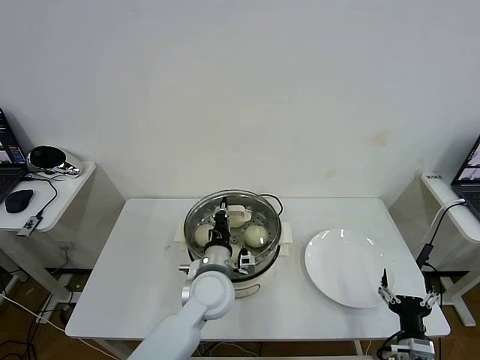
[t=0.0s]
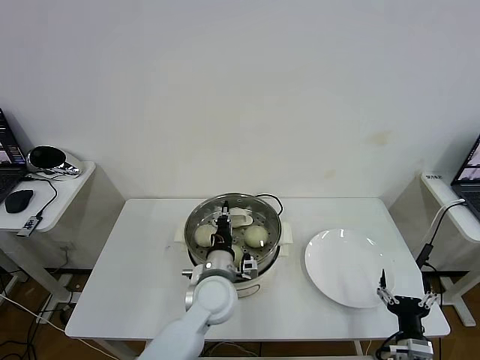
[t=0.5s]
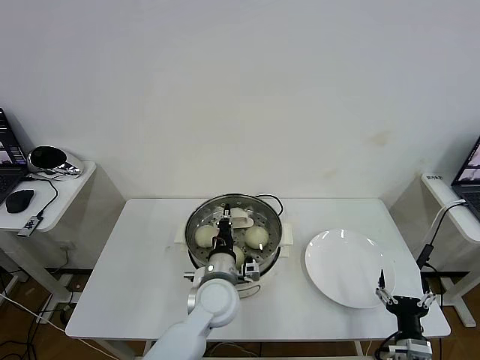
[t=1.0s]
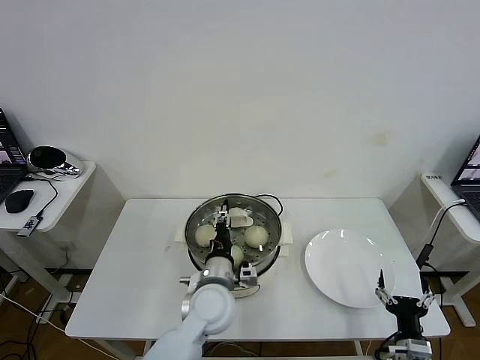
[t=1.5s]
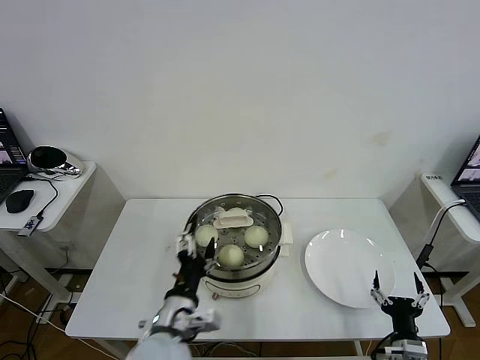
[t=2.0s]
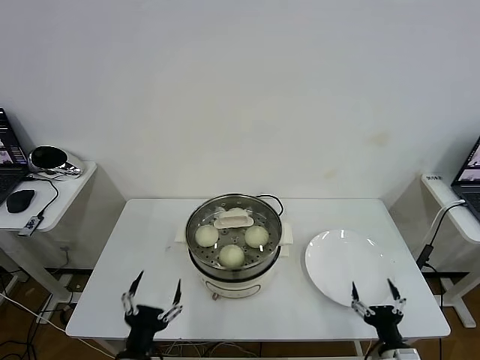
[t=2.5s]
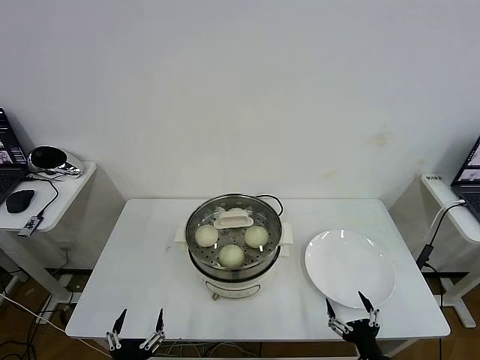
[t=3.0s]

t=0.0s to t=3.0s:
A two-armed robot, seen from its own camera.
Task of the whole recording: take steamed baozi put them in steamer then cover it.
t=0.0s to t=1.5s: The left gripper opens up.
t=1.5s to t=3.0s: The right gripper ends up about 5 cm from where it was. The left gripper goes roughly 30 cm backward and to the left, and opens.

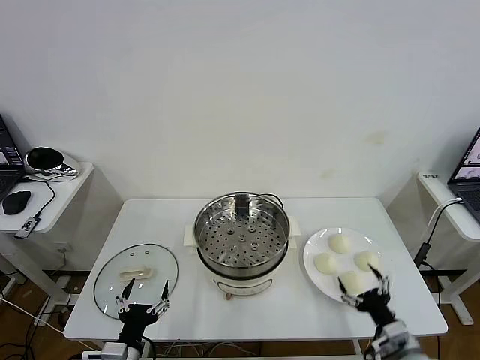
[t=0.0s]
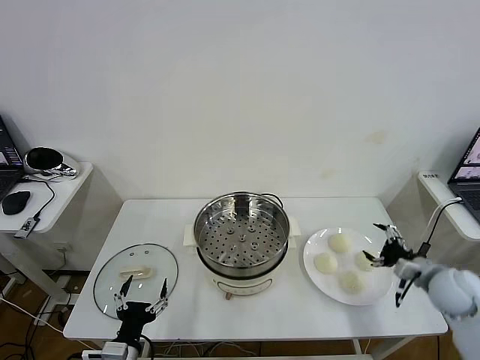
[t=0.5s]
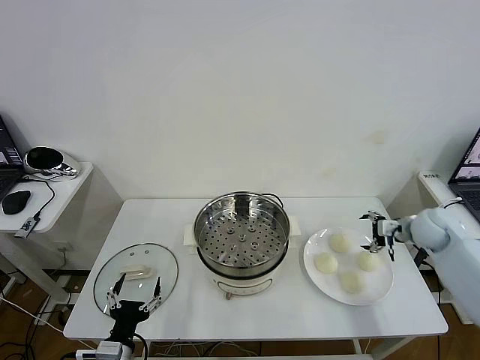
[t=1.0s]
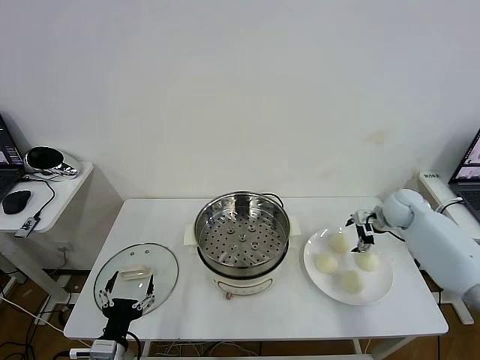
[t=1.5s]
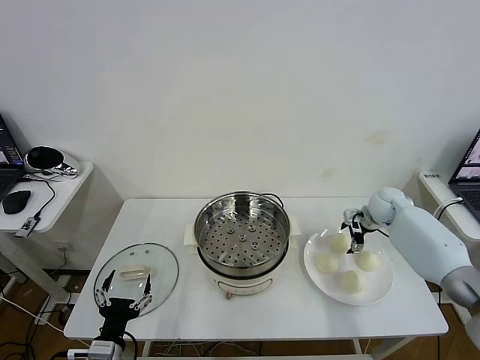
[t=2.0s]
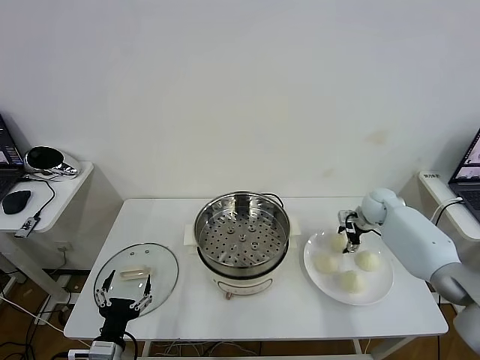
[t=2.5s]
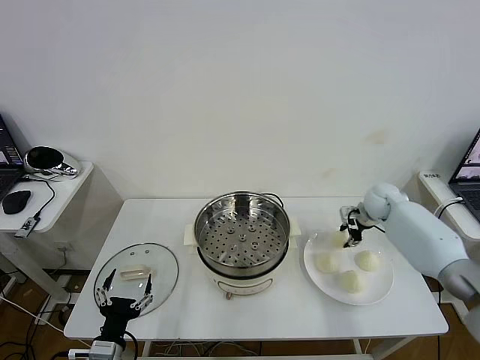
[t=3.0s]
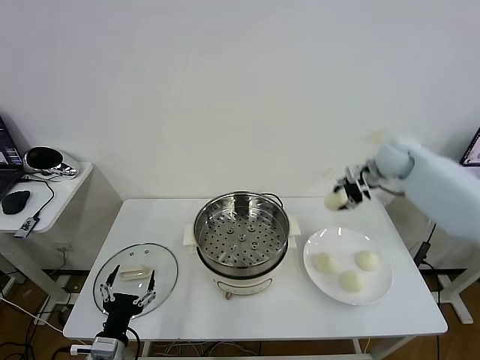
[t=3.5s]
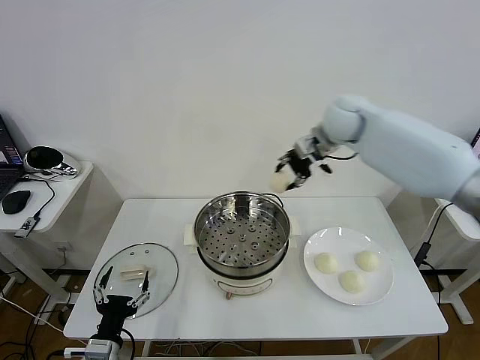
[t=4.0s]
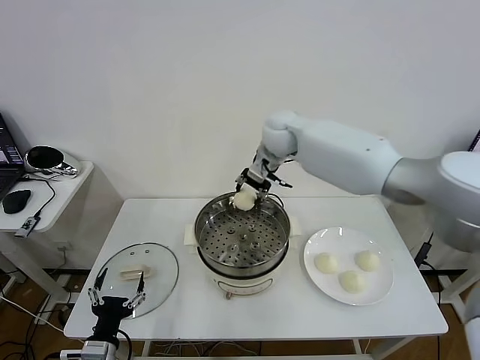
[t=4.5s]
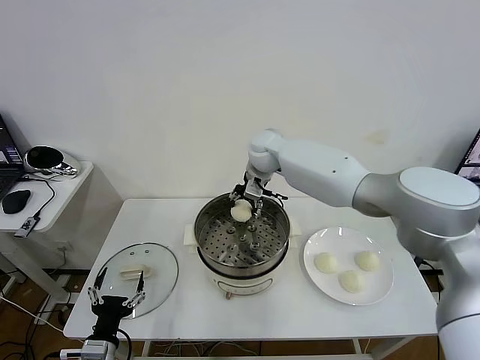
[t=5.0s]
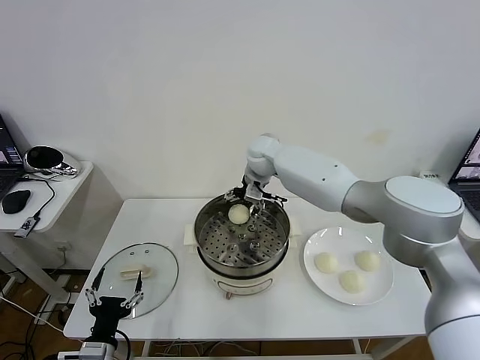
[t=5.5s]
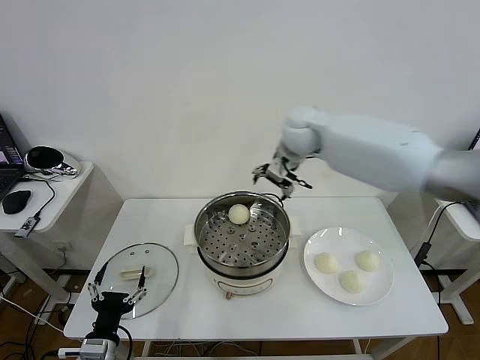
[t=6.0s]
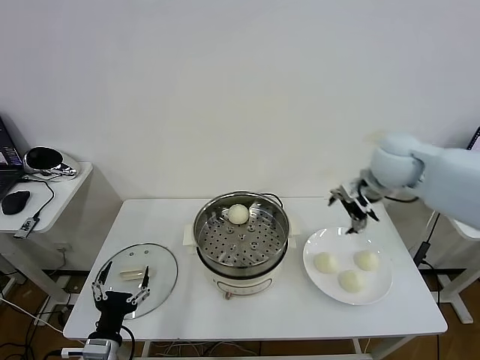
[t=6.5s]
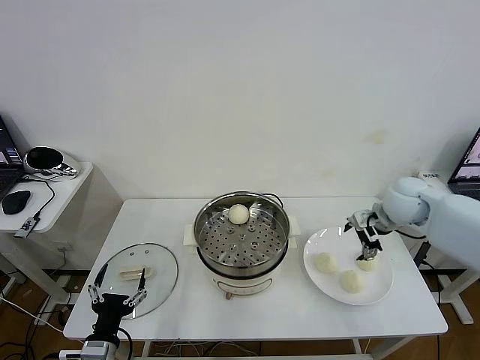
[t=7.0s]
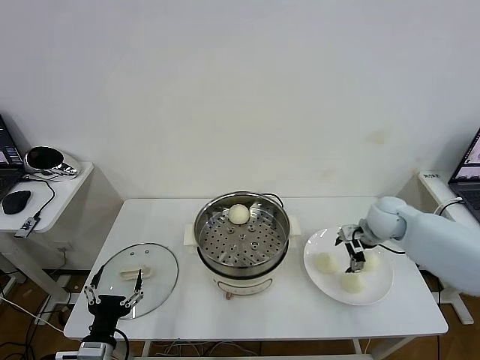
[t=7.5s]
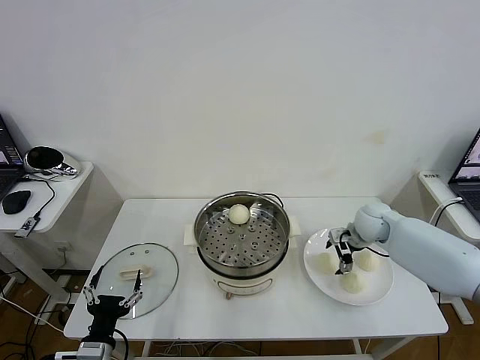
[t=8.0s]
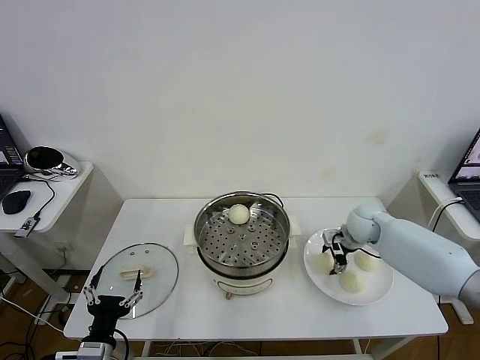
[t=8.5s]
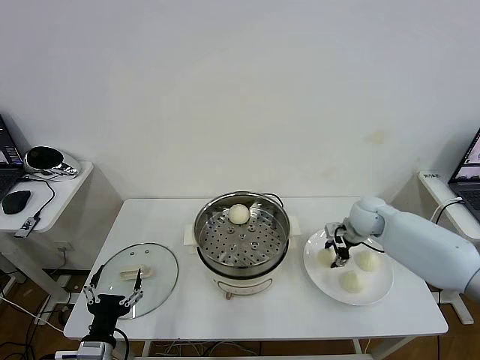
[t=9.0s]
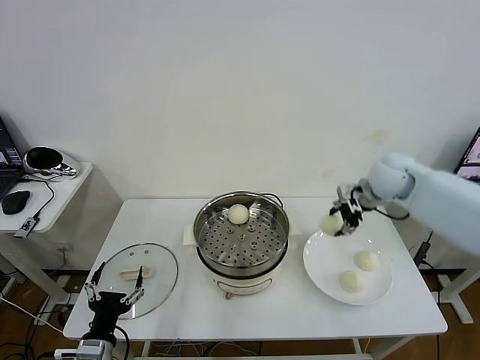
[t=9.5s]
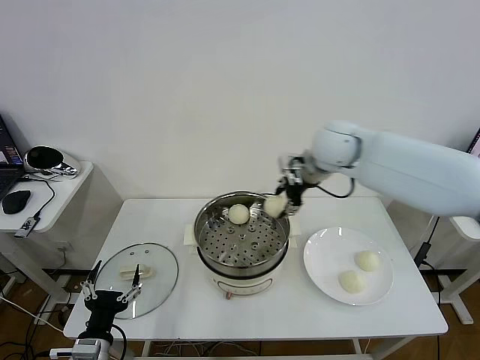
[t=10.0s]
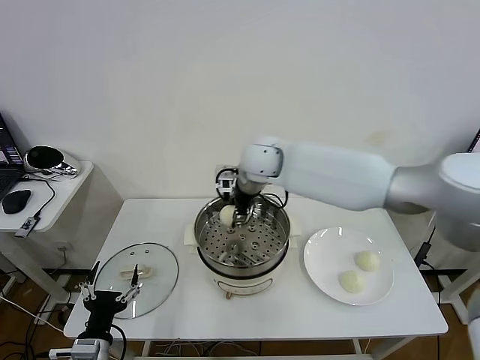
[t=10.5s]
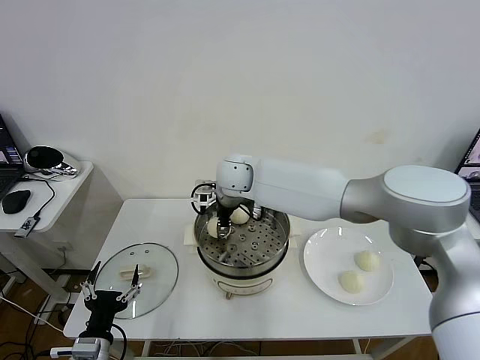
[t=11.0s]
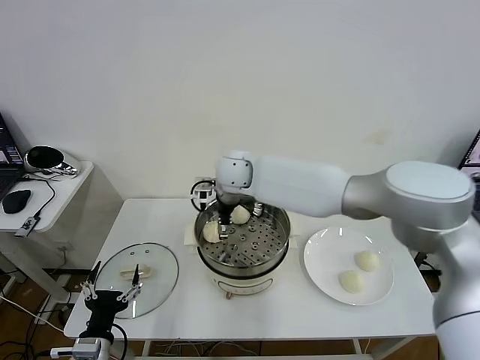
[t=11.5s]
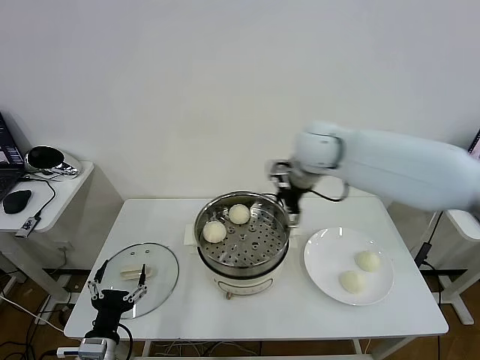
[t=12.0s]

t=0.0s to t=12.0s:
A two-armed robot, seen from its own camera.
Task of the whole recording: take steamed baozi put them in steamer then cover it.
Step, t=0.0s to t=2.5s: Grasp the baozi in the plate with right gripper.
Step, t=3.0s to t=5.5s: Place the baozi on the steamer with right gripper.
Step, t=6.0s to t=8.5s: Grasp the baozi in the plate with right gripper.
Step, t=9.0s to t=11.0s: Place the baozi on the steamer with right gripper.
t=2.0s to t=4.0s: The right gripper travels upward and to the left by about 30 cm, and closes.
t=4.0s to t=6.0s: The right gripper travels to the left by approximately 5 cm, and opens.
t=6.0s to t=8.0s: The right gripper travels downward and to the right by roughly 30 cm.
t=8.0s to t=10.0s: The right gripper moves upward and to the left, roughly 25 cm, and closes its fingers.
t=10.0s to t=12.0s: The right gripper moves roughly 20 cm to the left and comes back, and opens its fingers.

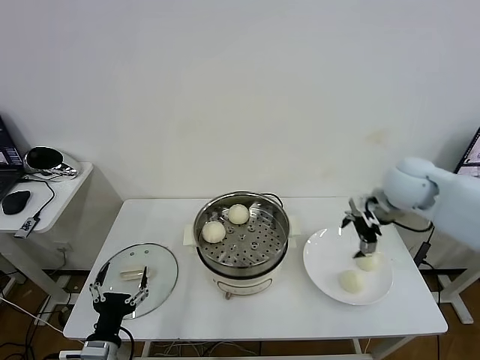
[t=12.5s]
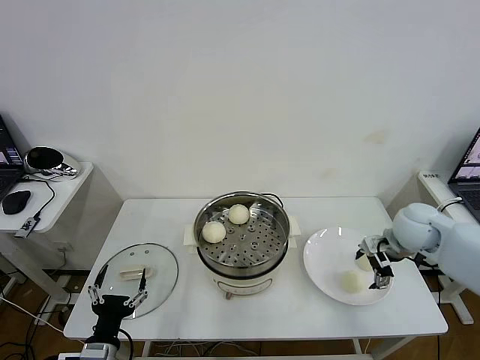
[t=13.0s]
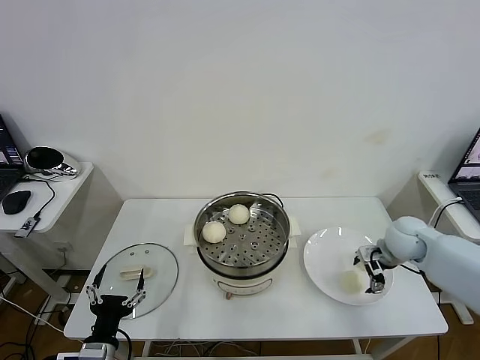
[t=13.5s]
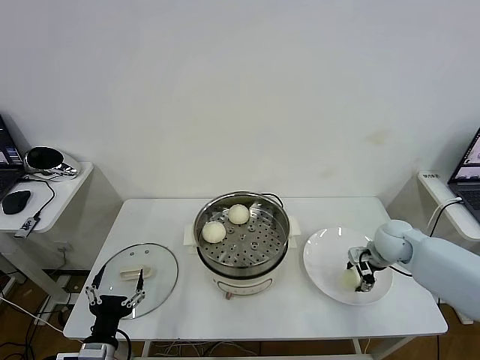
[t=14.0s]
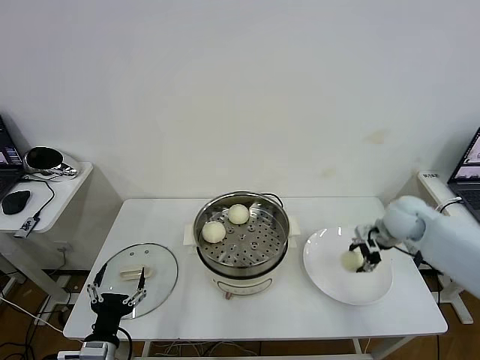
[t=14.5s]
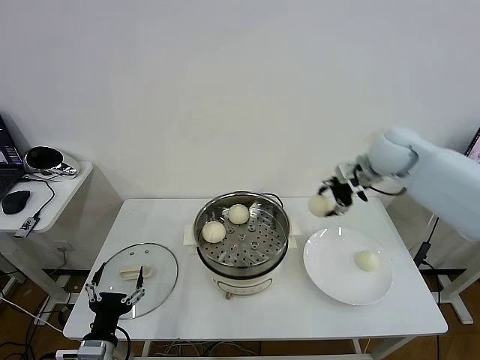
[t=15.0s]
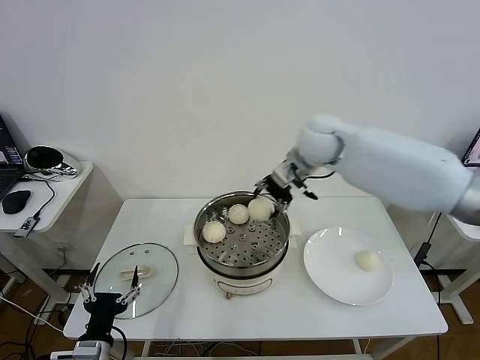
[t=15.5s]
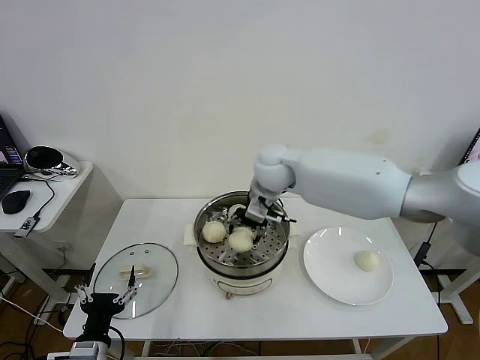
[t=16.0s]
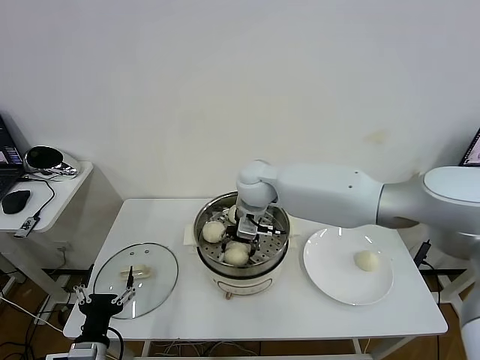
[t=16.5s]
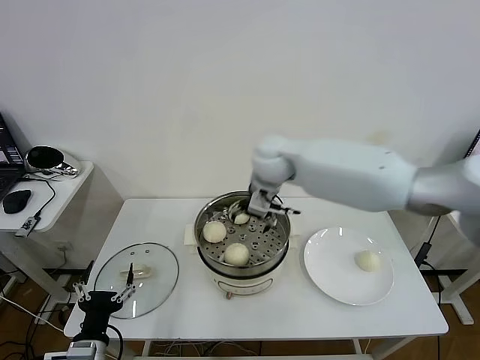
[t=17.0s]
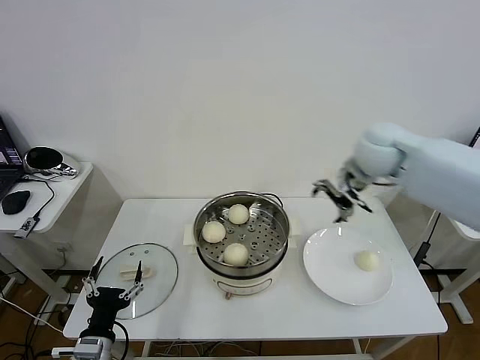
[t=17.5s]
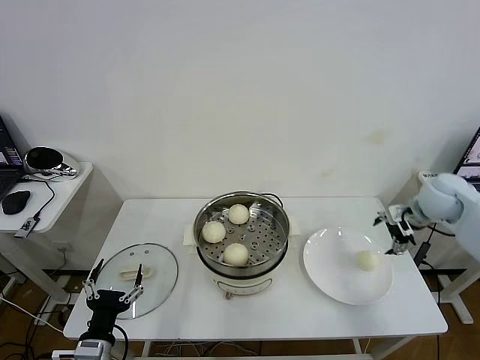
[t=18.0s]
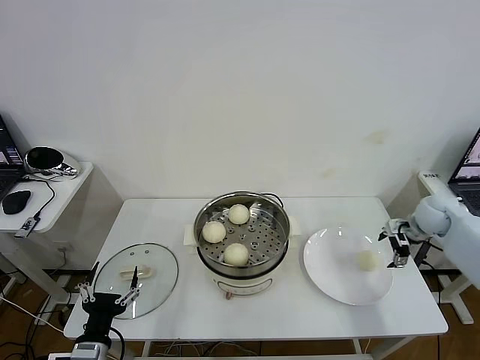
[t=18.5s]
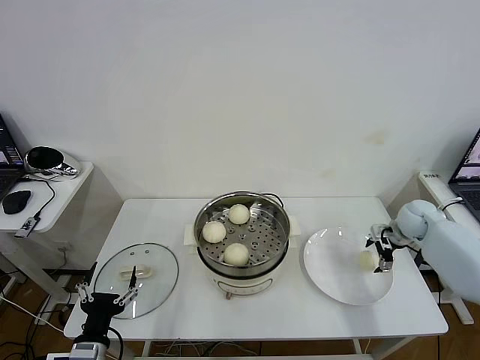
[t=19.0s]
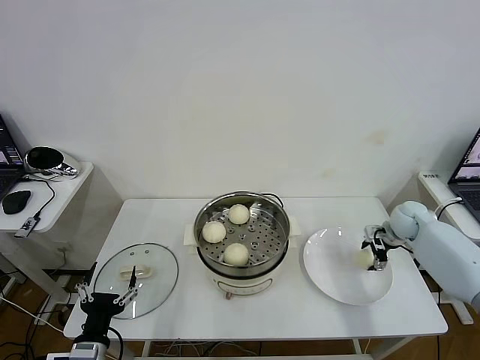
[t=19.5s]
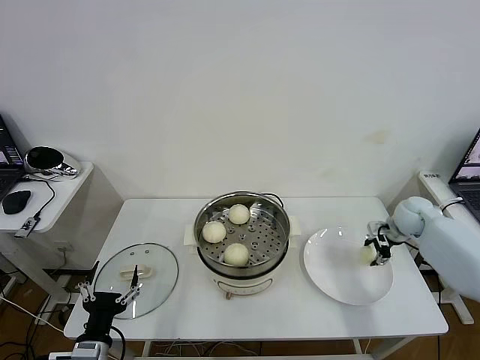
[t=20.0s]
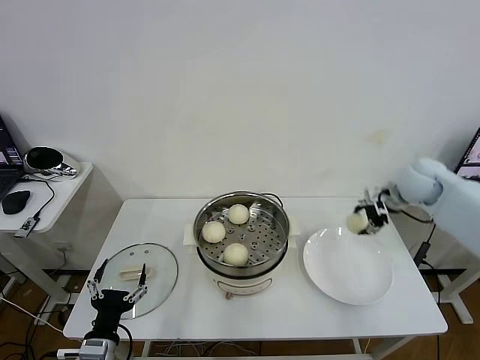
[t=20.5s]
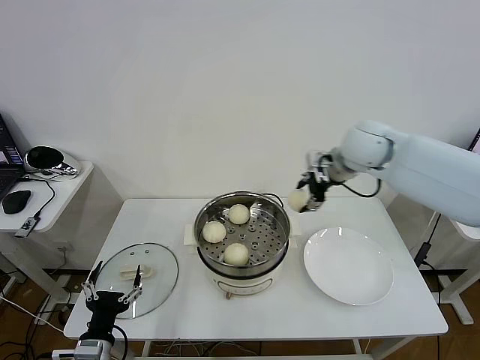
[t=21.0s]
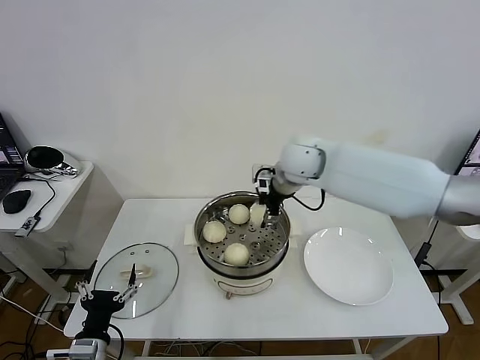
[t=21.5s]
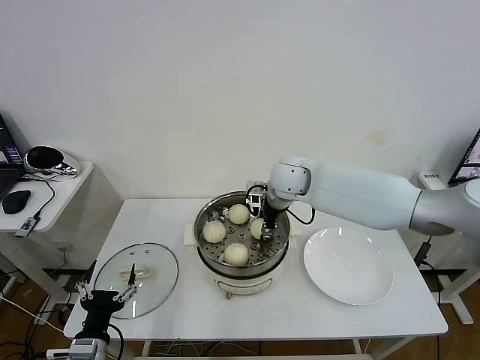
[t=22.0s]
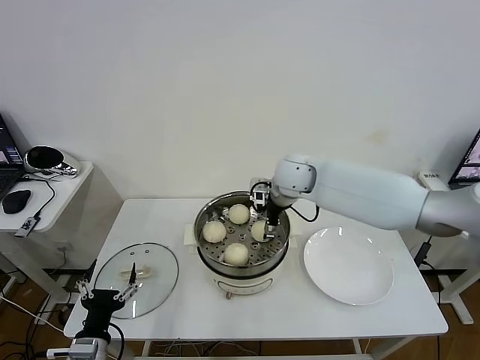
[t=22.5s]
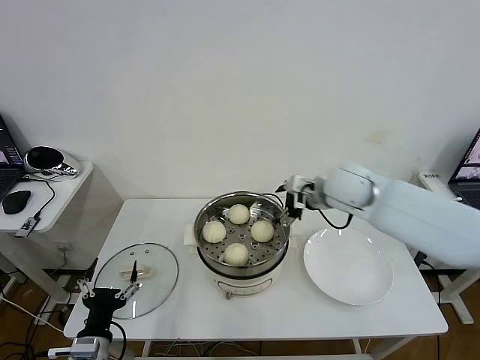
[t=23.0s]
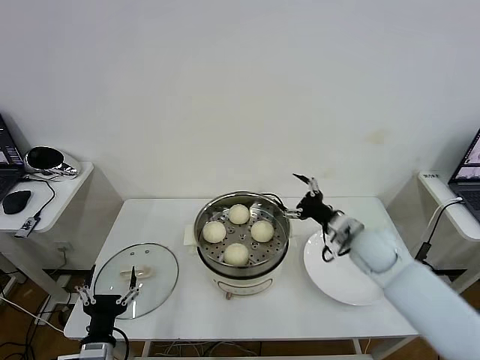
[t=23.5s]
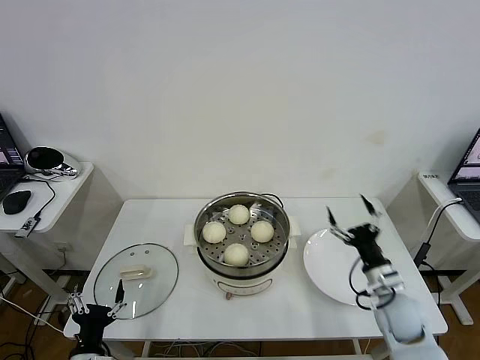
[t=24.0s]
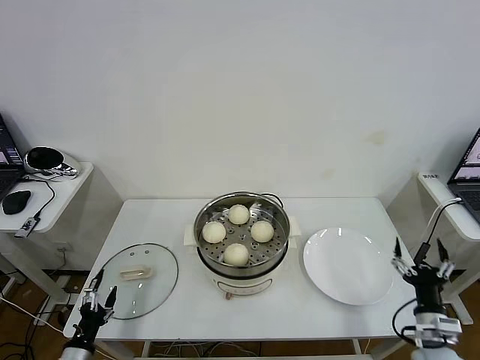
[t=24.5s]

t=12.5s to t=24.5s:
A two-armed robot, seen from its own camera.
Task of the whole recording: take steamed baozi put them in steamer then cover it.
Step, t=12.5s to t=14.0s: Grasp the baozi in the plate with right gripper.
Step, t=14.5s to t=16.5s: Place the baozi on the steamer with right gripper.
Step, t=17.0s to t=19.5s: Grasp the baozi in the plate with right gripper.
Step, t=20.0s to t=22.5s: Place the baozi on the steamer with right gripper.
t=12.5s to t=14.5s: The right gripper moves downward, about 10 cm, and closes.
t=14.5s to t=16.5s: The right gripper moves to the left, roughly 35 cm, and opens.
t=16.5s to t=18.5s: The right gripper moves to the right, some 40 cm, and opens up.
t=18.5s to t=20.5s: The right gripper moves upward and to the left, about 10 cm, and closes its fingers.
t=20.5s to t=22.5s: The right gripper moves to the left, about 30 cm, and opens its fingers.
t=22.5s to t=24.5s: The left gripper heads to the left and downward, covering about 10 cm, while the right gripper shifts roughly 50 cm backward, to the right and downward.
